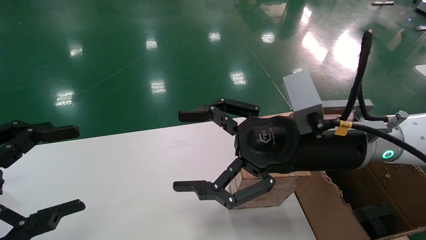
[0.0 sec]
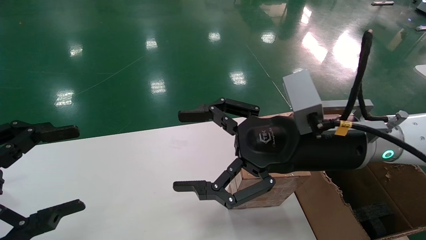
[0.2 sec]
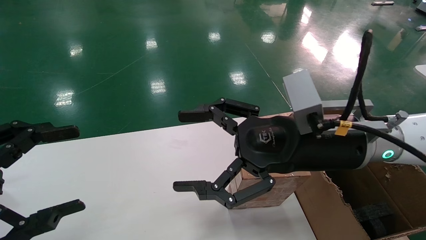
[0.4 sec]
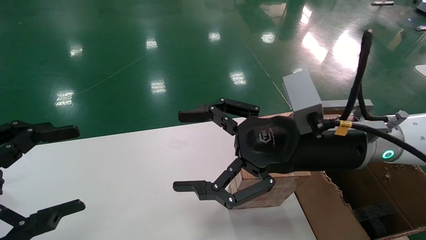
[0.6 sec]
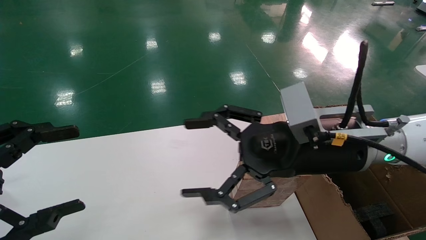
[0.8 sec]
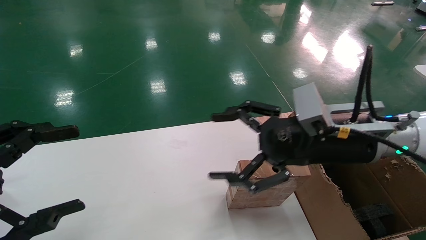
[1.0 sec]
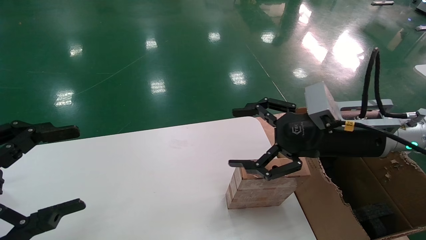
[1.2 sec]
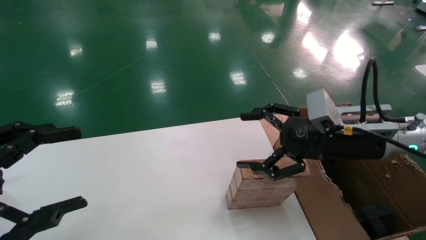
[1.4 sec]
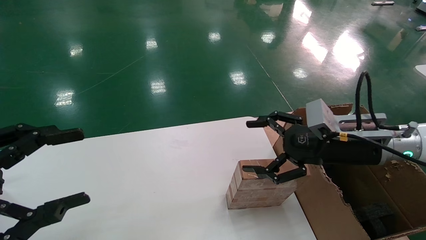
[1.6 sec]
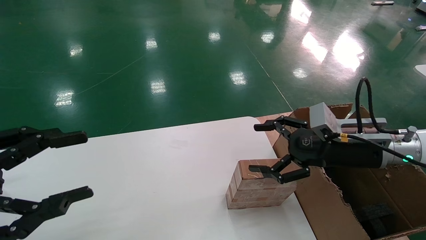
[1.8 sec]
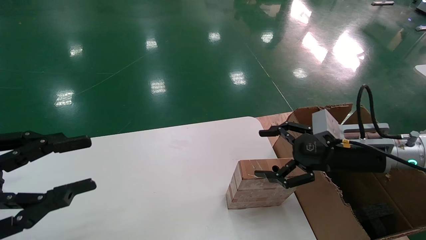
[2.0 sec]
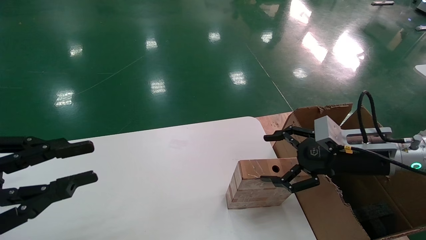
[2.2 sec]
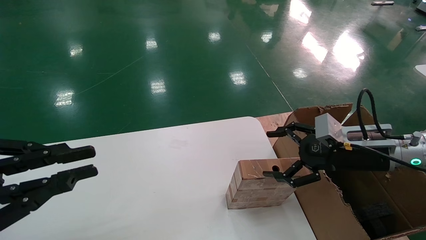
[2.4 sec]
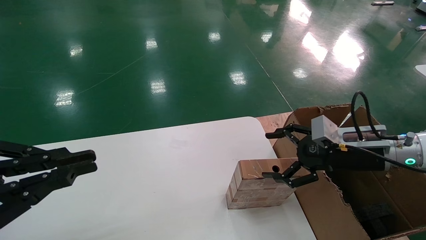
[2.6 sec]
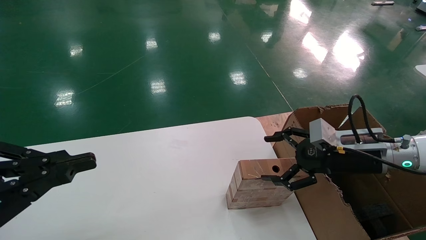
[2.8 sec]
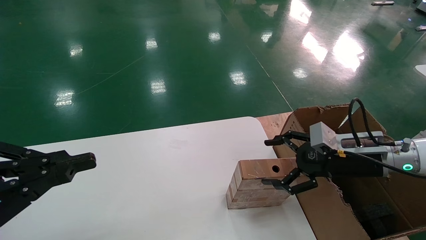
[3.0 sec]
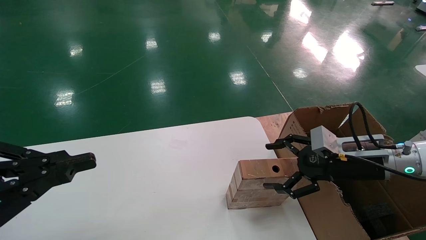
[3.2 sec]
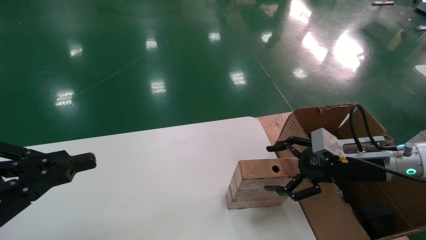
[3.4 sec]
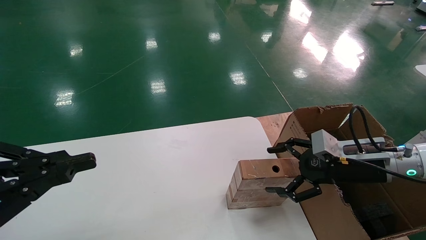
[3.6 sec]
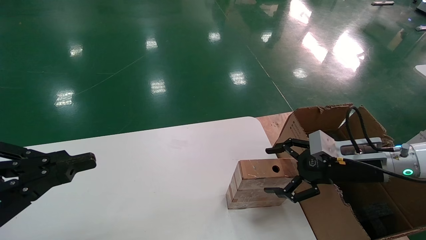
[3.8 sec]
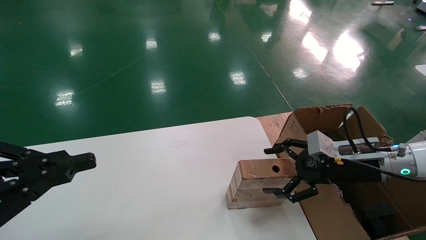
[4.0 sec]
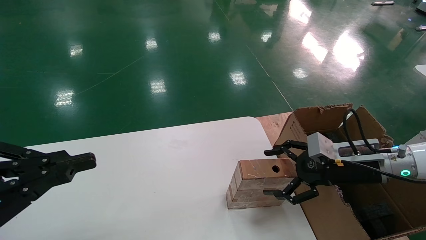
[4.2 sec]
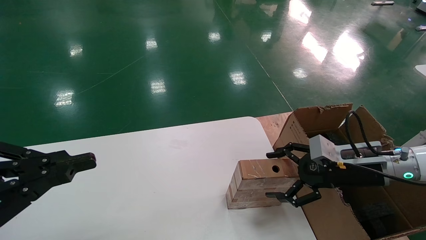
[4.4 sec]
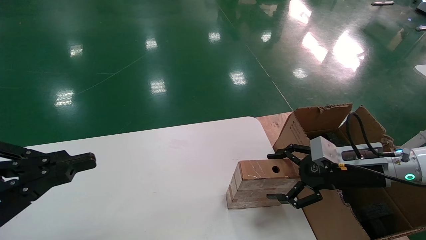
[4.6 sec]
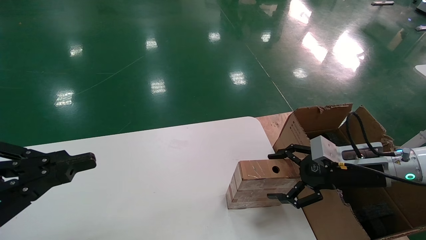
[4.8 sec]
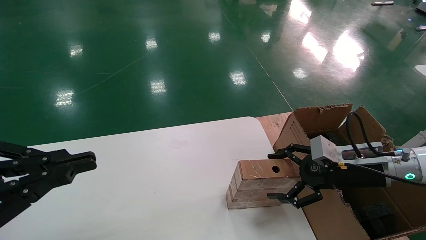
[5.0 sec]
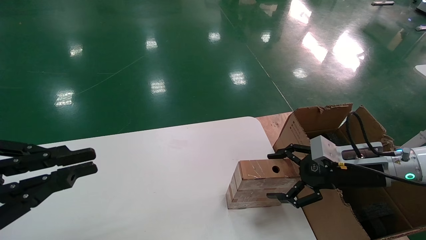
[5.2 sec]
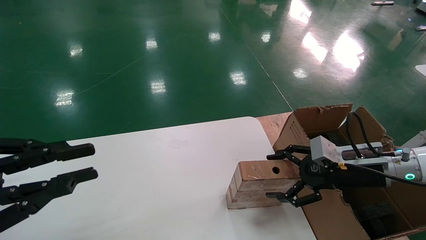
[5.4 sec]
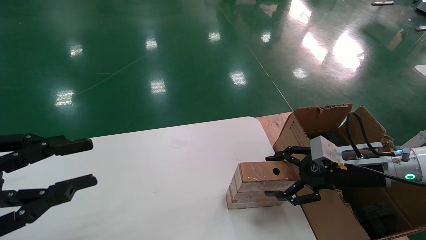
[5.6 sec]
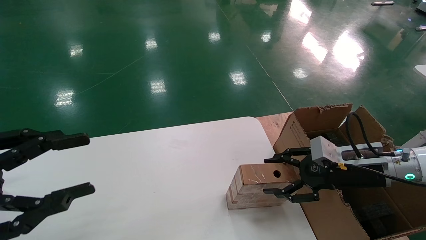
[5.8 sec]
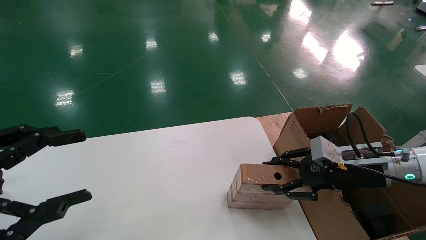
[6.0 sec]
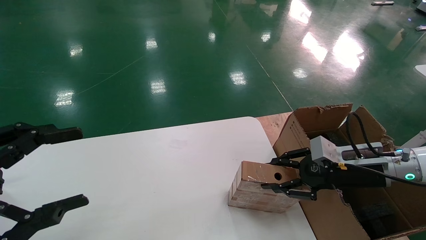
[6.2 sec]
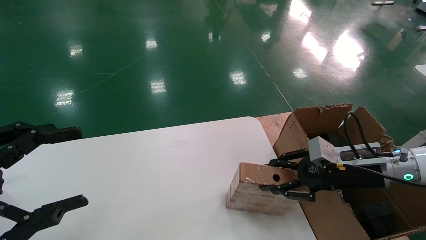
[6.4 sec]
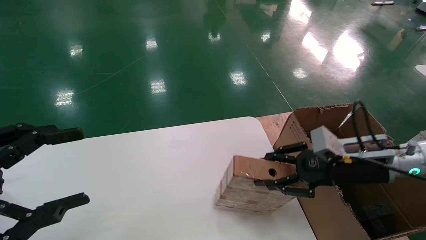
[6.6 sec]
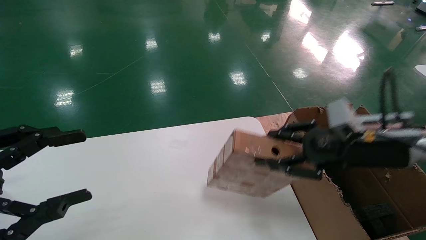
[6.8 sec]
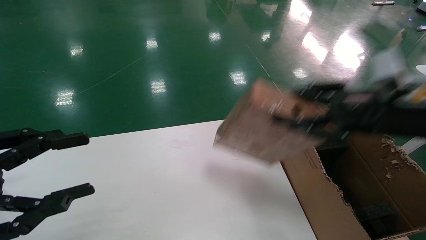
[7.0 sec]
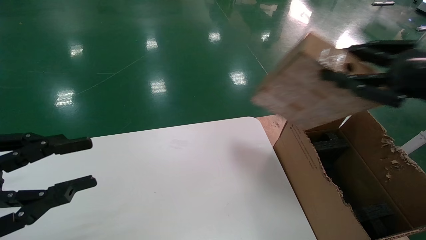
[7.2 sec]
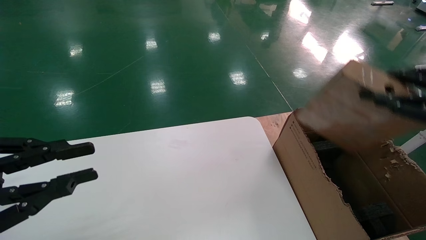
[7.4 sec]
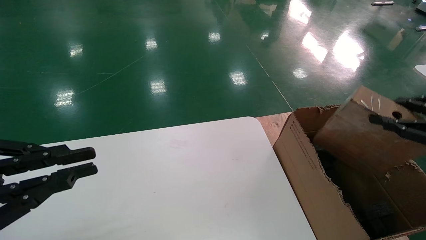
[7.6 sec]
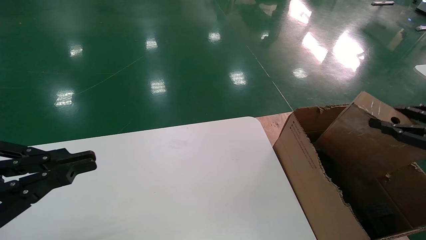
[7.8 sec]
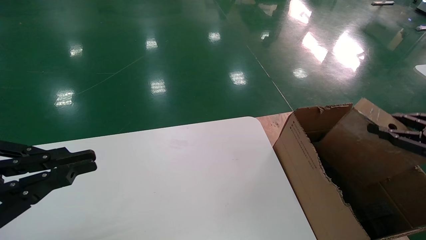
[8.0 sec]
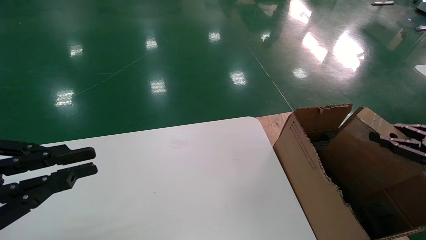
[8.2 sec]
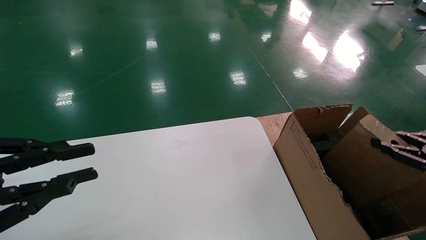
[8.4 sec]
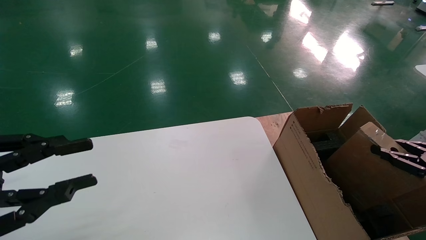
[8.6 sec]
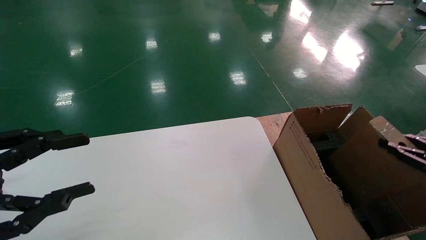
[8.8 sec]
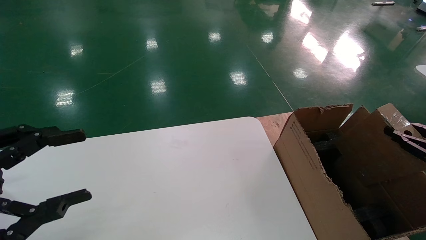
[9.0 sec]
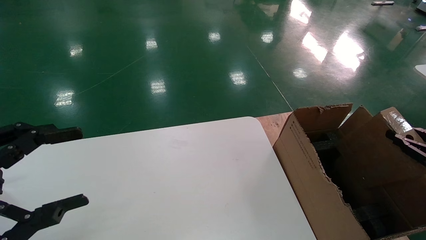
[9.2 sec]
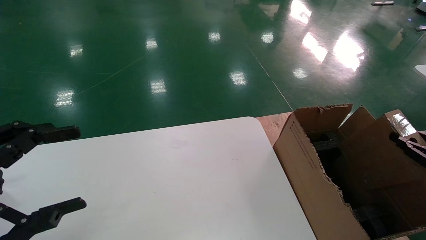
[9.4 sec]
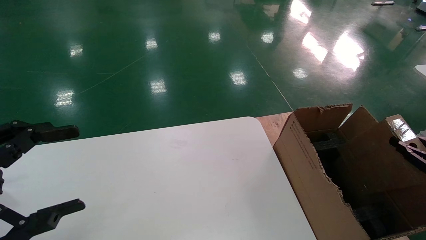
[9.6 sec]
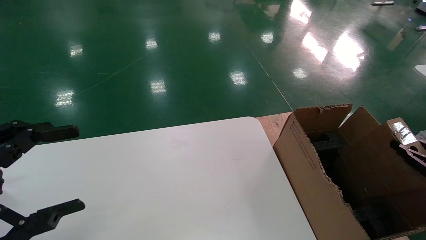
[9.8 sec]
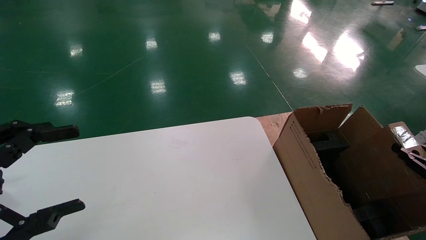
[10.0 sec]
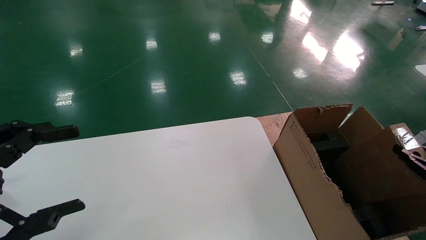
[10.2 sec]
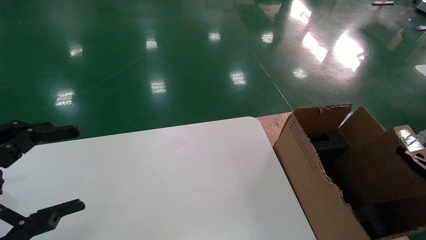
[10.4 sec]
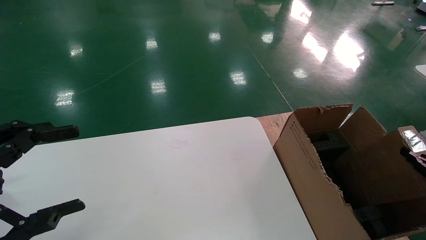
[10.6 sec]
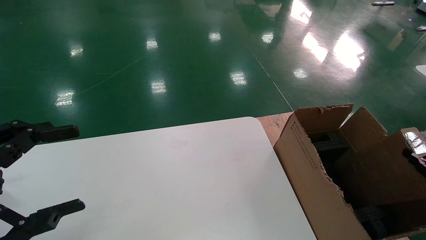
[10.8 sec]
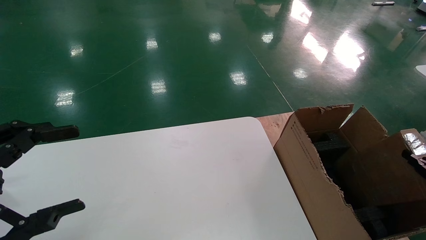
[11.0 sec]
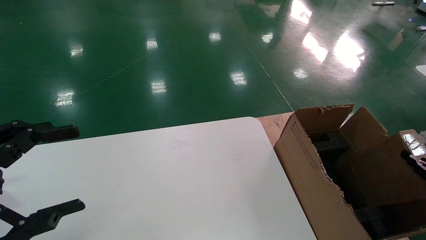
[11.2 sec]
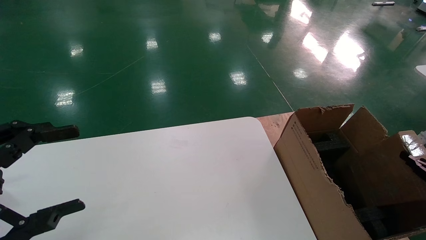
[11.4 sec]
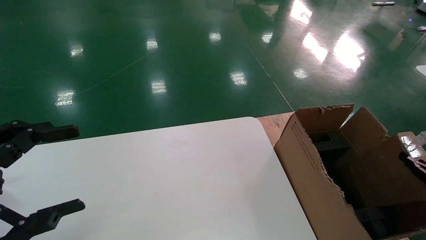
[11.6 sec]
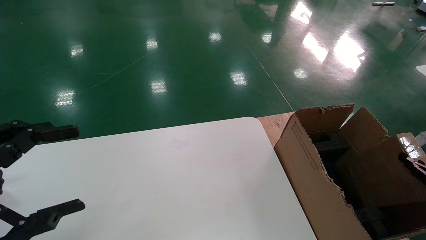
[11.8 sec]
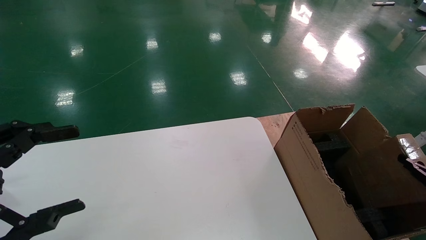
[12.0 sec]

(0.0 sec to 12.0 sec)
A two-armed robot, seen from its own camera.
Task of the whole recording: put the box on the table into the big box.
Step, 1.2 sec - 6.2 sec: Pick up the mouse and the power cord paper box.
0.0 sec - 1.6 sec: The right gripper shifts roughly 10 cm to the right.
1.6 sec - 3.0 sec: The right gripper moves approximately 5 cm; the left gripper closes its fingers.
3.0 sec - 4.4 sec: The grippers make only small movements.
4.4 sec - 6.0 sec: The right gripper closes its fingers. The left gripper opens.
6.0 sec - 7.6 sec: The right gripper moves to the right, backward and upward, approximately 20 cm, and closes its fingers, while the left gripper closes.
7.6 sec - 9.0 sec: The left gripper opens its fingers; the right gripper travels downward and to the right by approximately 15 cm.
9.0 sec - 10.4 sec: The right gripper goes roughly 5 cm downward, while the left gripper opens.
10.4 sec - 12.0 sec: The grippers move only a little.

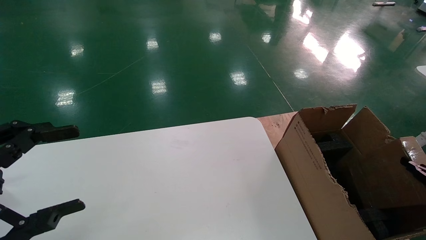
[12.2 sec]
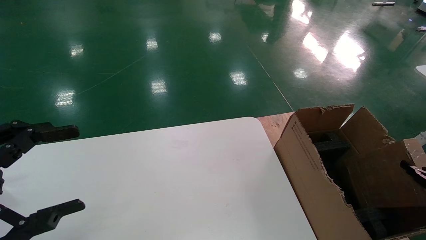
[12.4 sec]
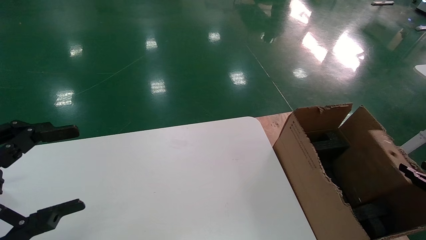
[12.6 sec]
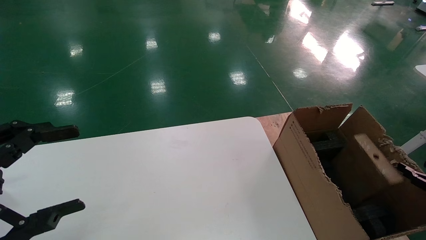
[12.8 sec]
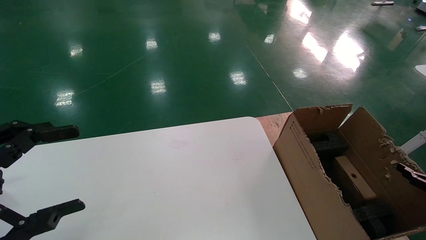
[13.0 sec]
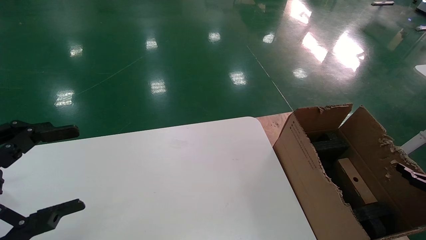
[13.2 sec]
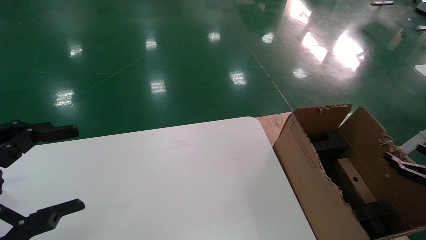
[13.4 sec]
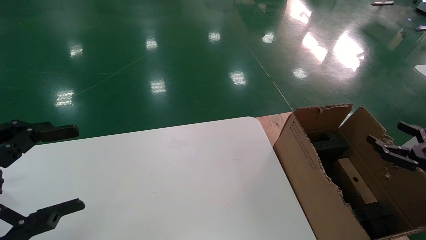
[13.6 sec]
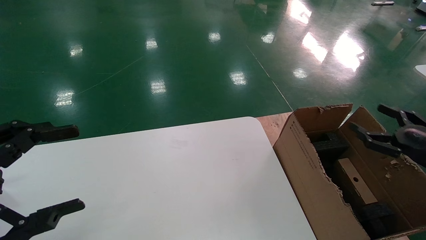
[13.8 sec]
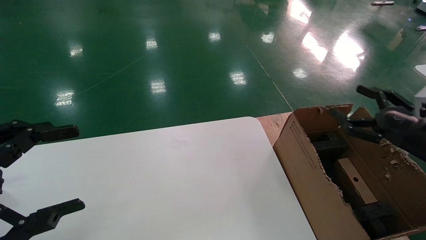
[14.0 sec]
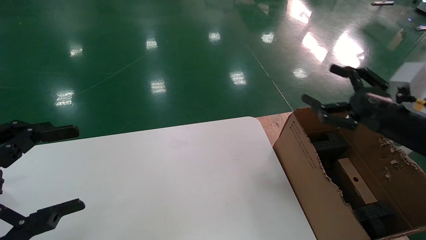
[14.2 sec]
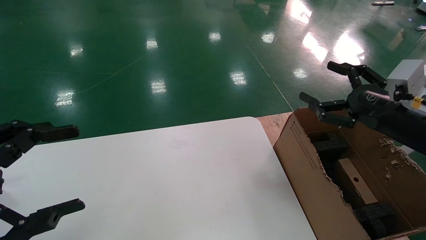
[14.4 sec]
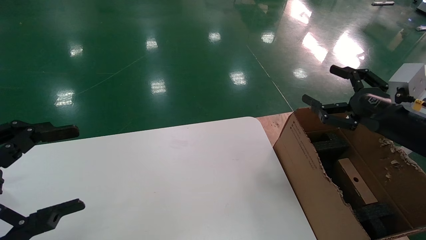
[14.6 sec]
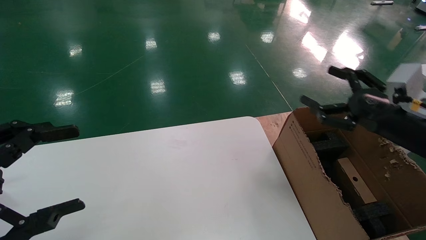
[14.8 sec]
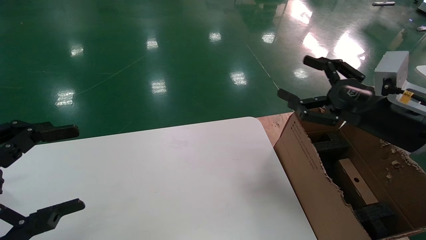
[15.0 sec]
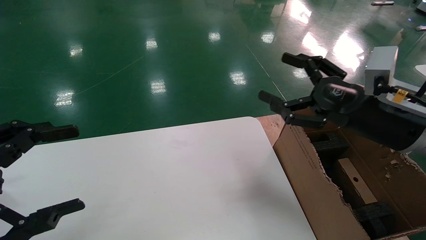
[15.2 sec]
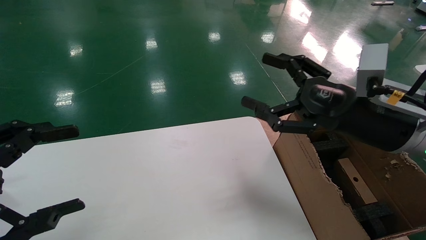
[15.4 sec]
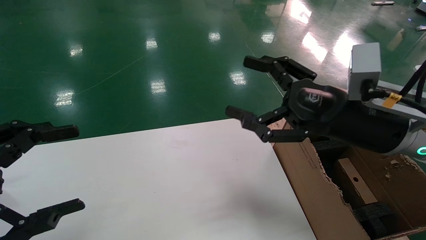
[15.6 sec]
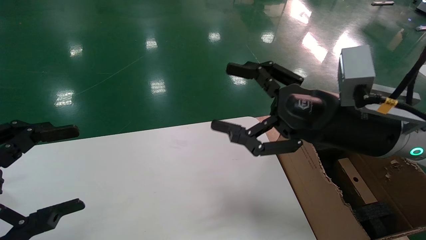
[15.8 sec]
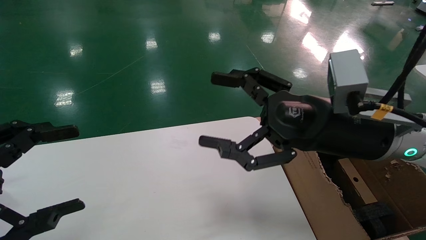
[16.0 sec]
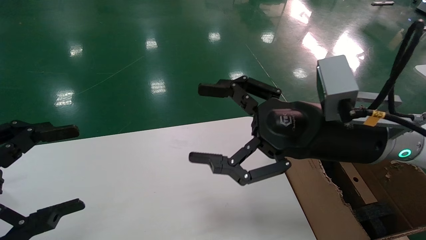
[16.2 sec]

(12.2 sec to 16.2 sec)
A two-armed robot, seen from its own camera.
Task of the whole recording: put the box on the table into the big box.
12.2 sec - 13.6 sec: The right gripper travels upward and to the left by some 10 cm, and opens its fingers.
13.6 sec - 14.8 sec: The right gripper shifts some 20 cm to the left and upward.
14.8 sec - 16.2 sec: The right gripper travels to the left by about 15 cm.
